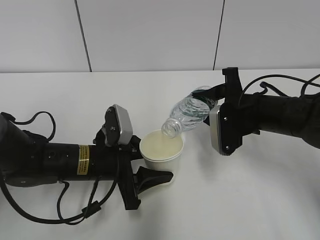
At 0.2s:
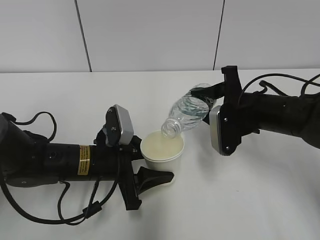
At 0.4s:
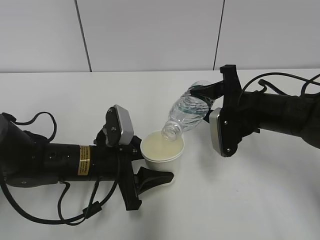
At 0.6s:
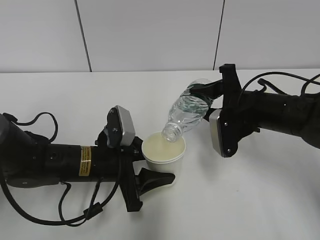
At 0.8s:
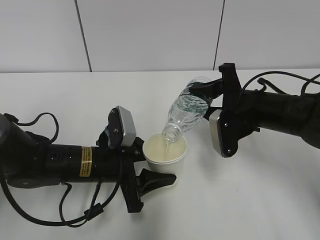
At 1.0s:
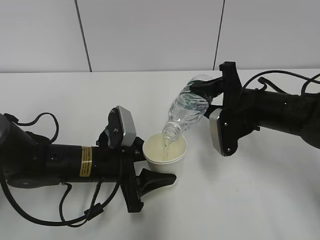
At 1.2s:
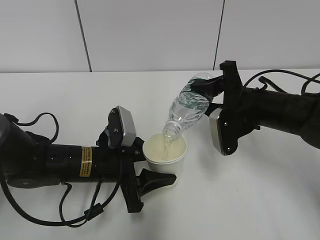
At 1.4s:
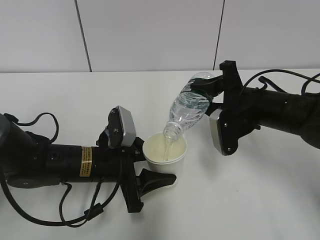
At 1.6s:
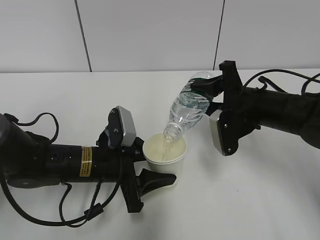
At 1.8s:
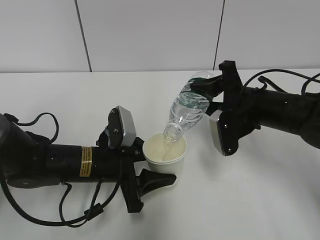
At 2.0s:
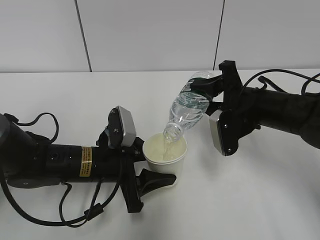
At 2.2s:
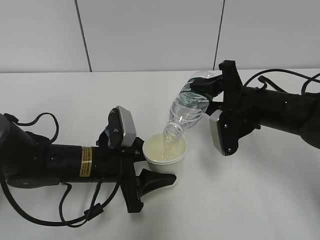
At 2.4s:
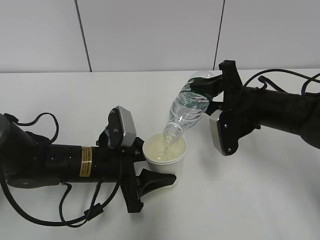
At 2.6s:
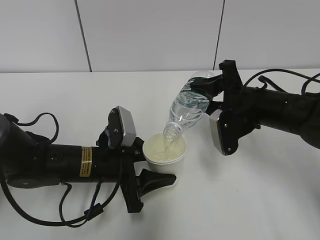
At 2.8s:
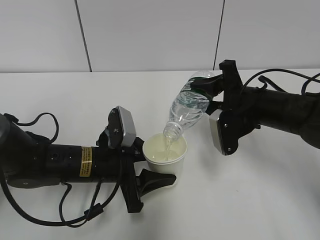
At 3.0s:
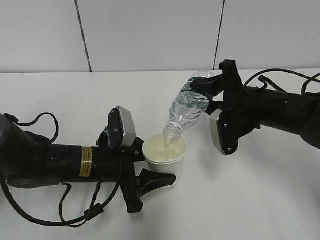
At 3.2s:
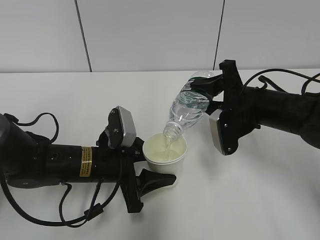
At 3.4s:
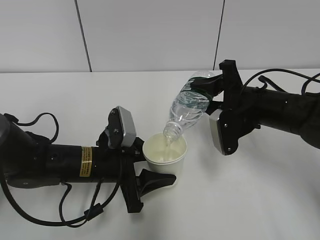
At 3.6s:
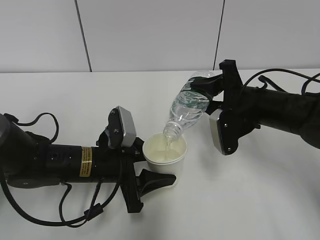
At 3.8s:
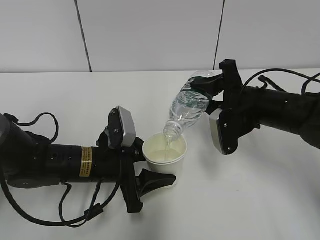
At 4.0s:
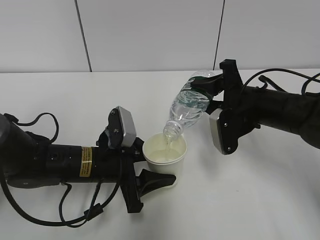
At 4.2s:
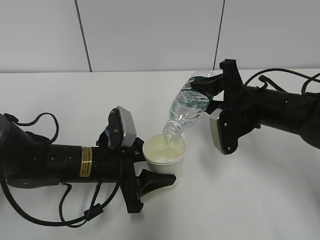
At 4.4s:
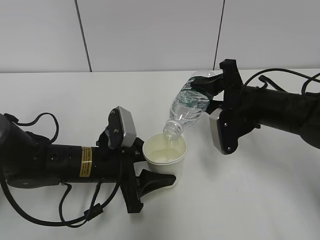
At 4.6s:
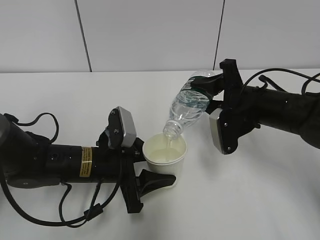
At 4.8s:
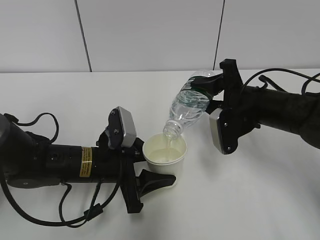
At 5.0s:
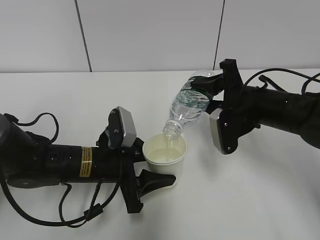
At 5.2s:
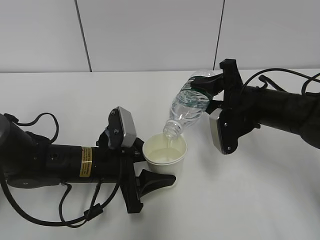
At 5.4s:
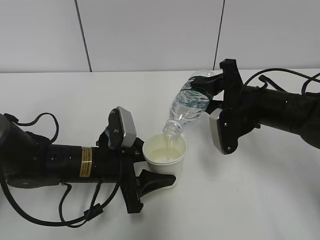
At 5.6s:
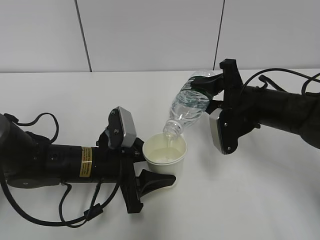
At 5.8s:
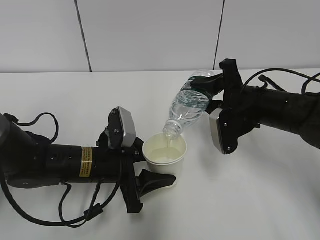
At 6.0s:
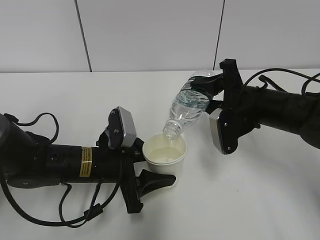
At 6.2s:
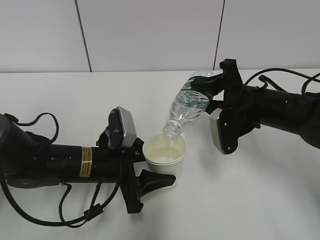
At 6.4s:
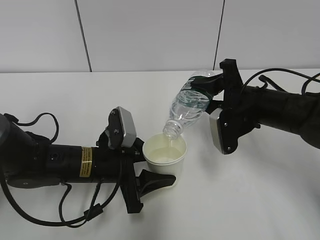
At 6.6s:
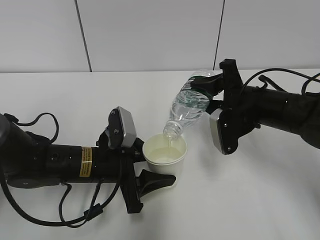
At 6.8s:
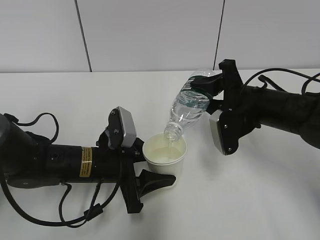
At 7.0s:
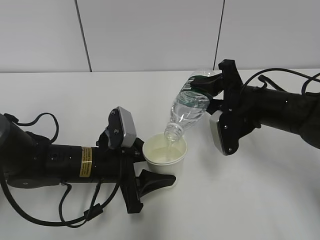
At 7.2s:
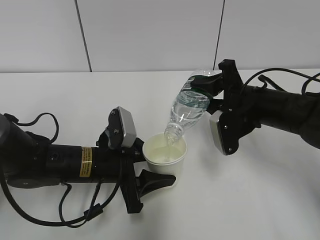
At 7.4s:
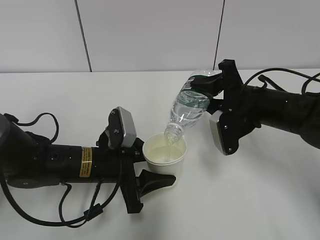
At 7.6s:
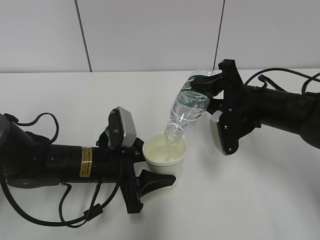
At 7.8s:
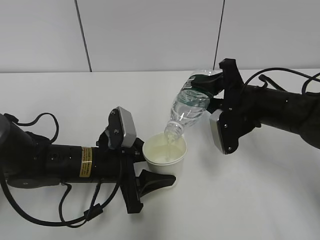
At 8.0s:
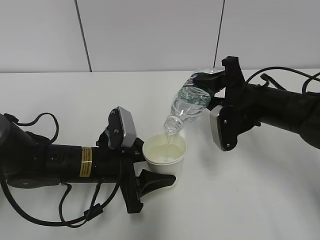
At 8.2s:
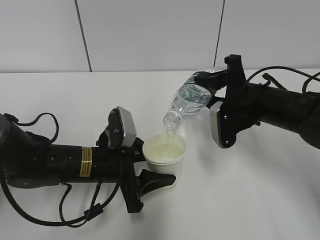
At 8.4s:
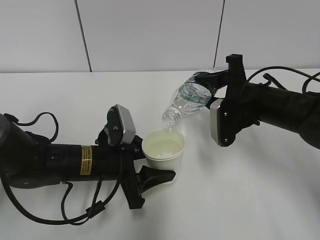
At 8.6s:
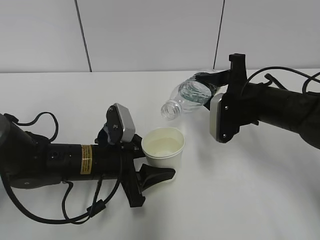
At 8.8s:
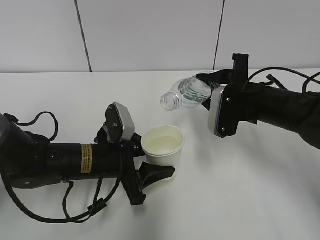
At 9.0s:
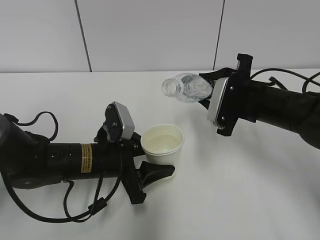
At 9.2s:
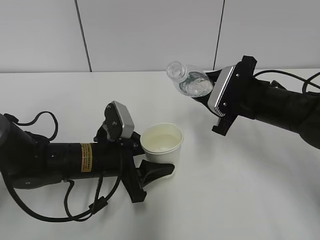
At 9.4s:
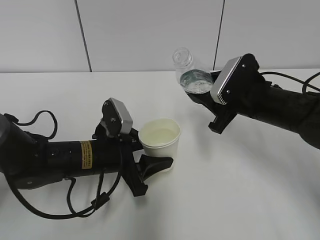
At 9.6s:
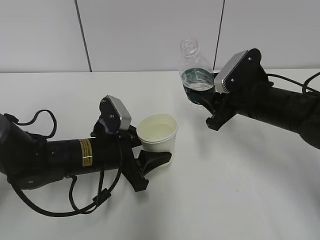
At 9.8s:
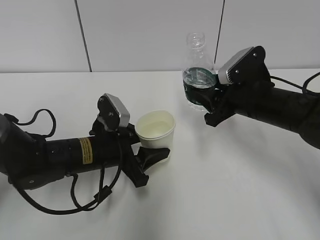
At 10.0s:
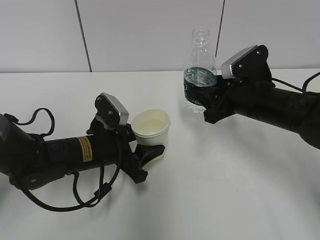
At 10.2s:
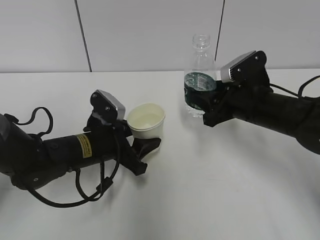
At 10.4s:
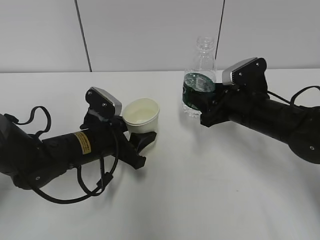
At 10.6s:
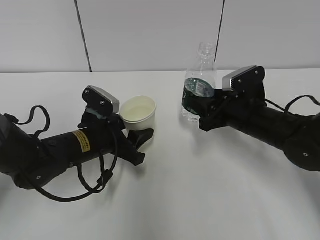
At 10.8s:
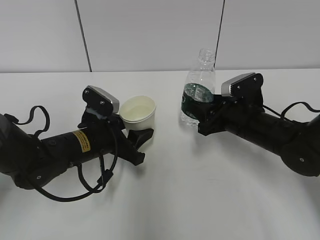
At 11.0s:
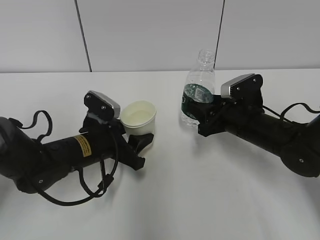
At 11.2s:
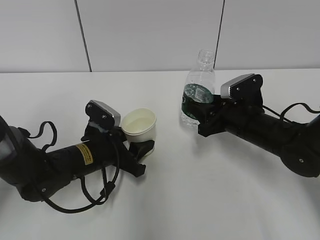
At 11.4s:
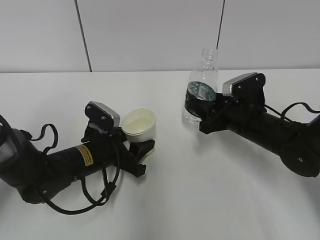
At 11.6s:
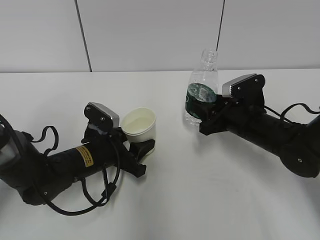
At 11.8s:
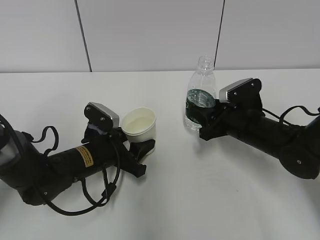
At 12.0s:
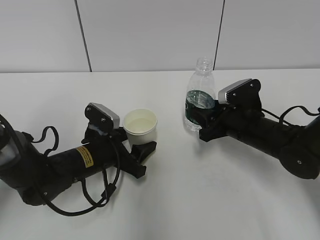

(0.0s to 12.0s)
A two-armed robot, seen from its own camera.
Step, 0.0s - 3.0s: Fill water with the left hand.
Step, 0.0s - 3.0s: Pour water with the right hand.
0.0s - 1.6s: The grippers make only small movements.
1.6s - 7.6s: Neither gripper changes place.

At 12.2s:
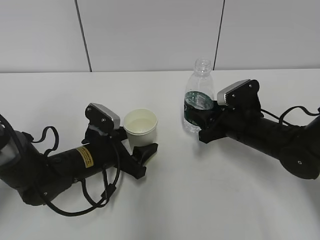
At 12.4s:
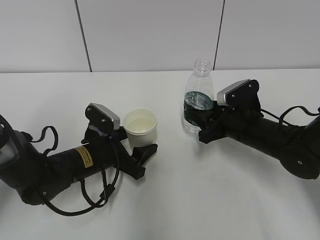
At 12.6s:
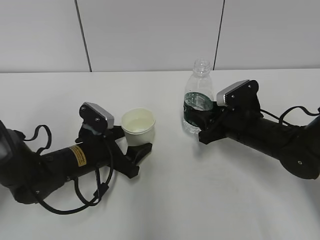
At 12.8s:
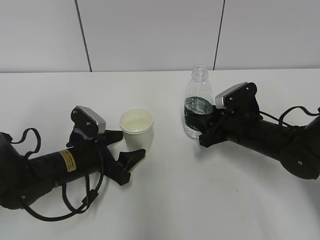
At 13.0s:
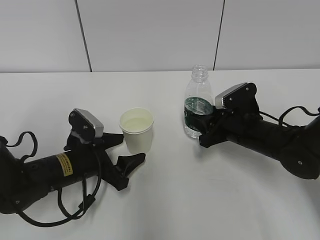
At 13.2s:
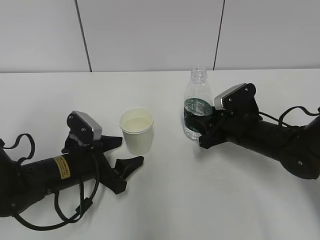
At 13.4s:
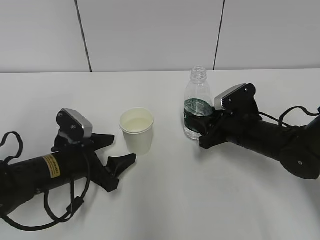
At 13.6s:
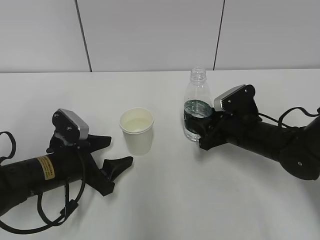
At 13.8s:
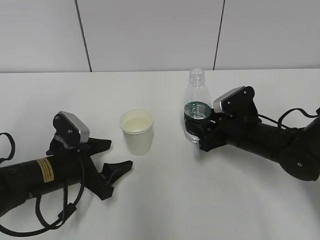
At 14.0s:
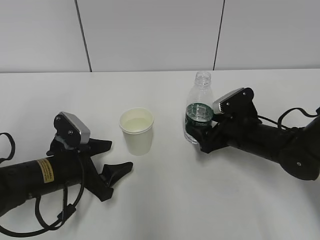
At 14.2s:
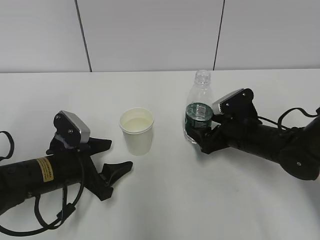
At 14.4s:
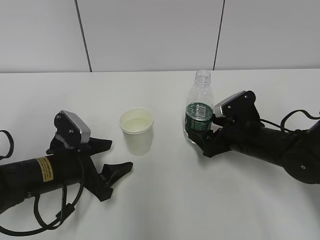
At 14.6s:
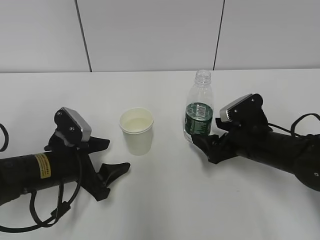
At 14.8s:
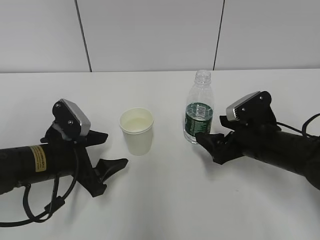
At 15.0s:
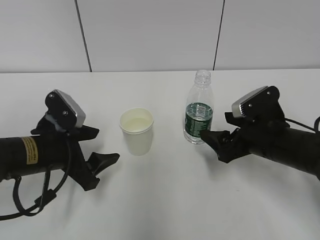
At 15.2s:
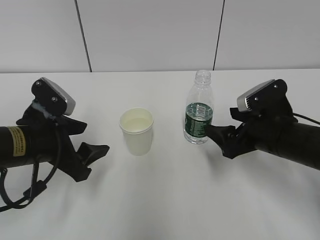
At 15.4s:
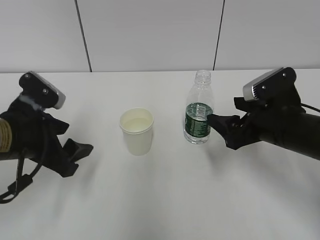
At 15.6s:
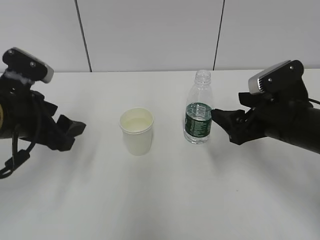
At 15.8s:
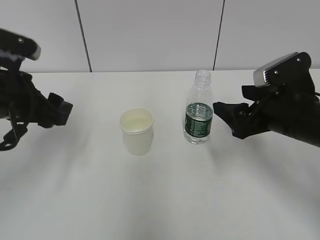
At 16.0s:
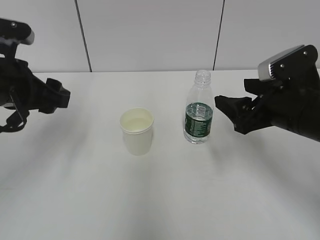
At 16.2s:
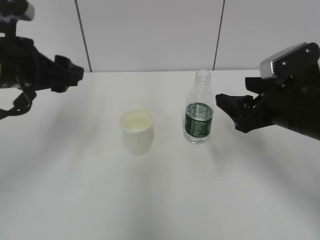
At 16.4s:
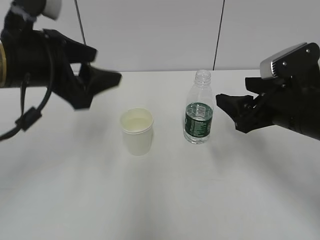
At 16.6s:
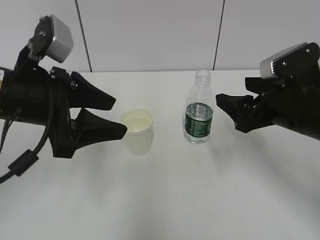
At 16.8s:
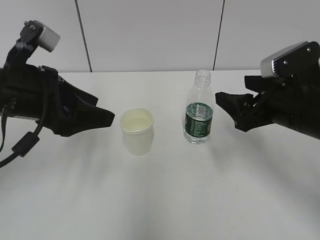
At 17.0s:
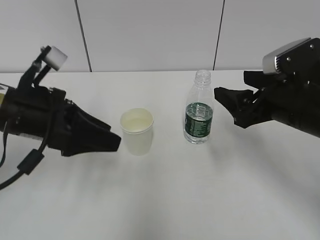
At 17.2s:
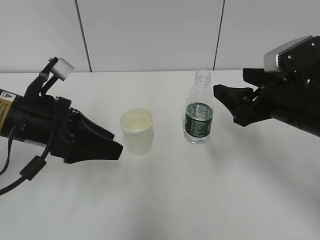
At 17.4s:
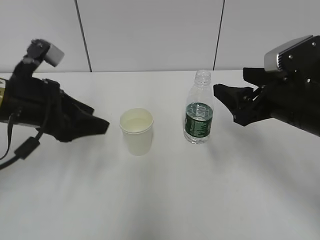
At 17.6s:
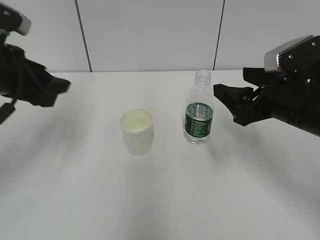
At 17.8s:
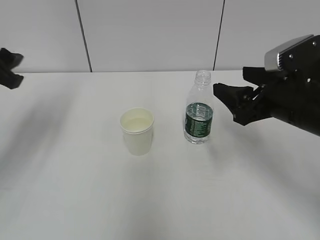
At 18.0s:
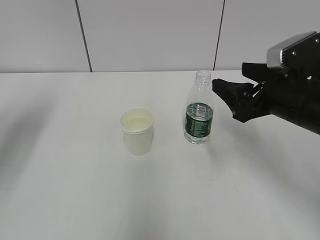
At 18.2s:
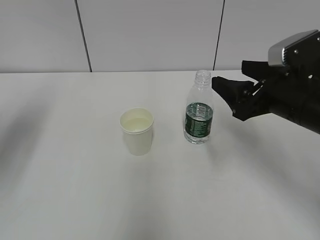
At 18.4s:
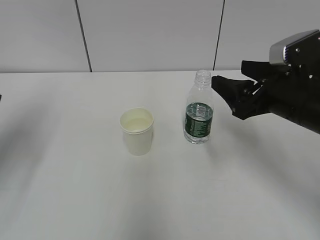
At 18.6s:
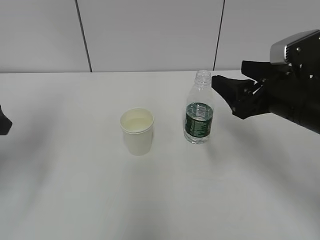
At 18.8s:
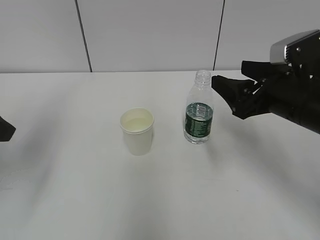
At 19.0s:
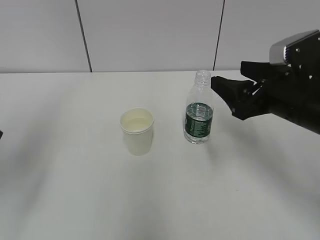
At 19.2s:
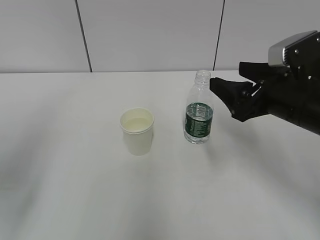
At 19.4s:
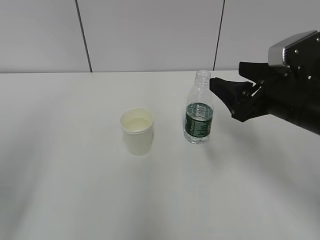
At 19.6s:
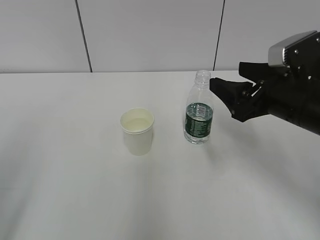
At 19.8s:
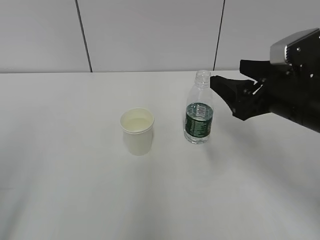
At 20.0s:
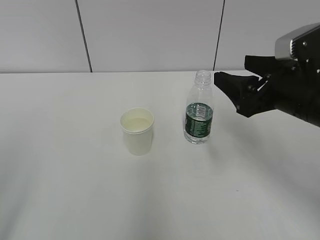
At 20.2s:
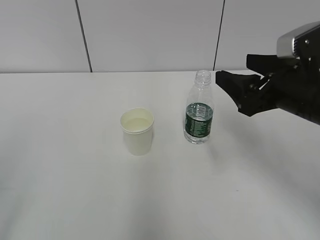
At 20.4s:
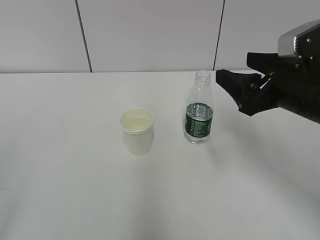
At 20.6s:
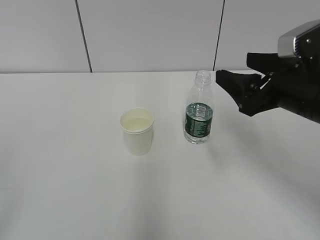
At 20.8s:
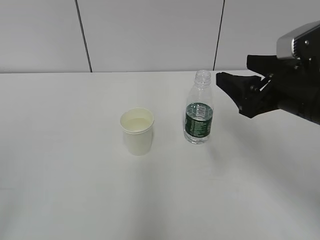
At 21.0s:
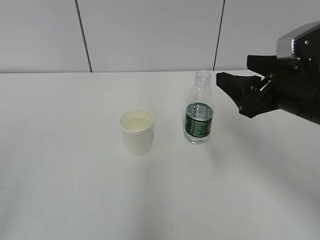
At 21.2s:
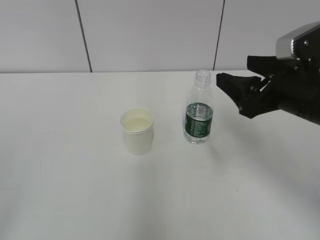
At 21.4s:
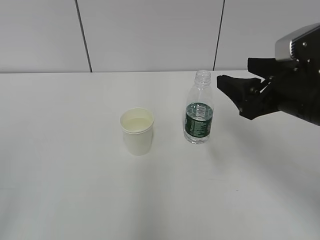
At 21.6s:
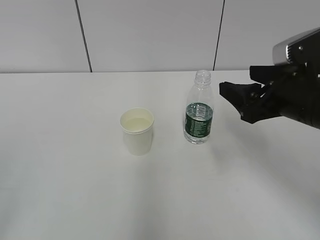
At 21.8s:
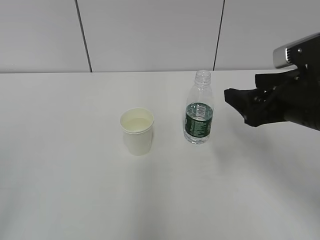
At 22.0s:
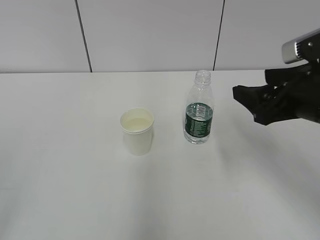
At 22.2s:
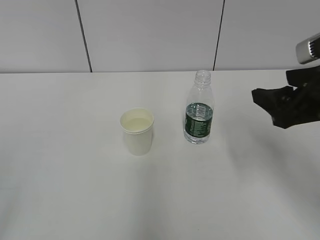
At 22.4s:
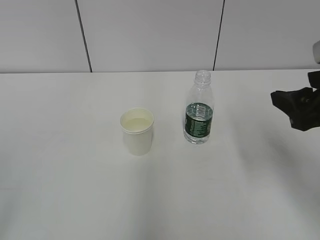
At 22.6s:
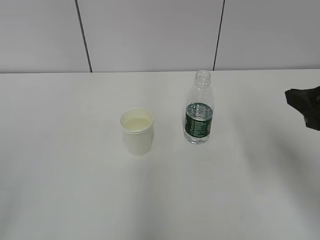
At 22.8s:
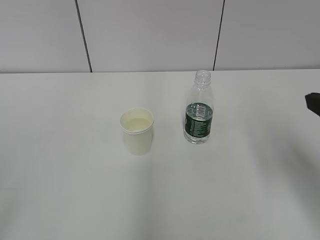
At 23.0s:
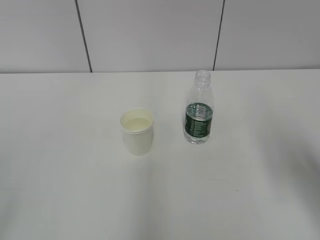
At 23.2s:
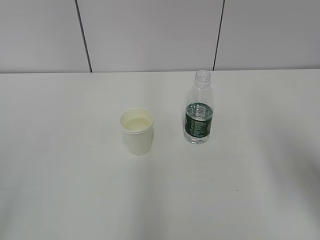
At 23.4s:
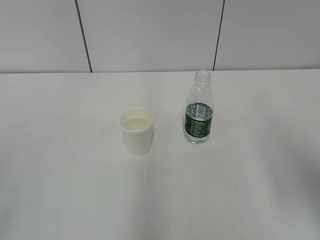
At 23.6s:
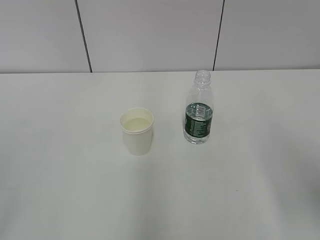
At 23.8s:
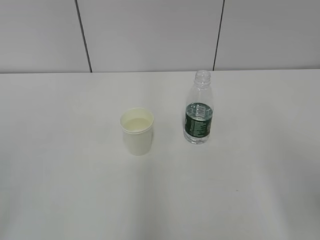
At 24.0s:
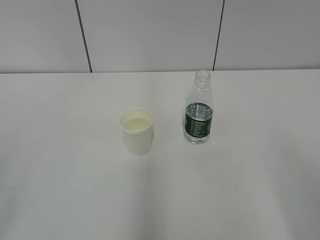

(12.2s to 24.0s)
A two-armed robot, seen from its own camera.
12.2s - 13.6s: The left gripper ends up approximately 5 cm from where it was.
13.6s - 15.2s: The left gripper heads upward, covering approximately 5 cm, while the right gripper goes roughly 5 cm backward, and opens up.
15.2s - 16.6s: The right gripper heads upward, covering about 5 cm. The left gripper shifts approximately 10 cm upward.
16.6s - 18.2s: The left gripper heads to the left, covering approximately 15 cm.
18.2s - 19.6s: The left gripper shifts approximately 20 cm backward.
21.0s - 22.6s: The right gripper travels backward by about 5 cm.
22.6s - 24.0s: The right gripper travels backward by some 15 cm.
